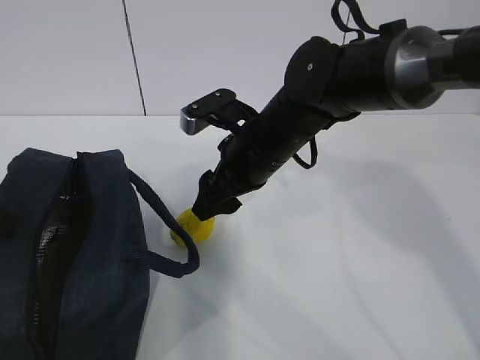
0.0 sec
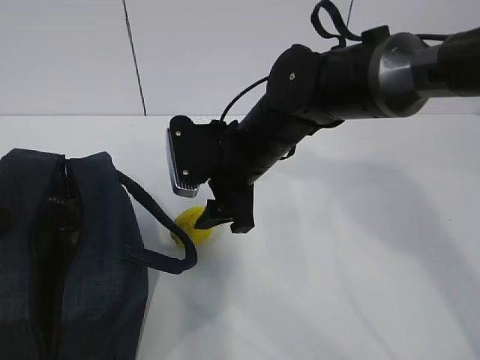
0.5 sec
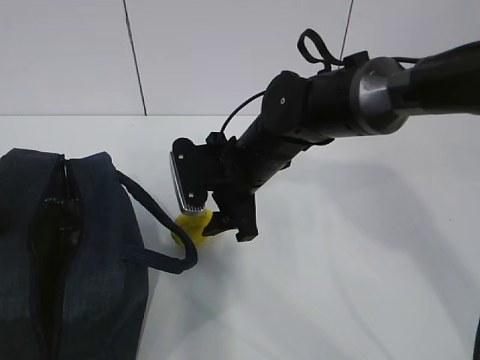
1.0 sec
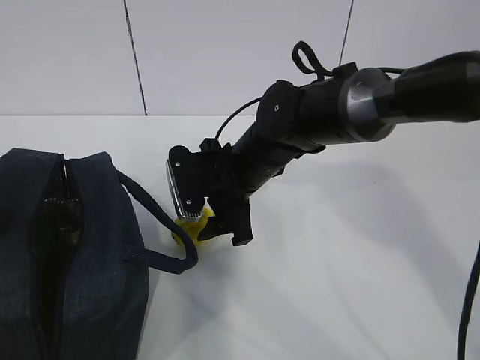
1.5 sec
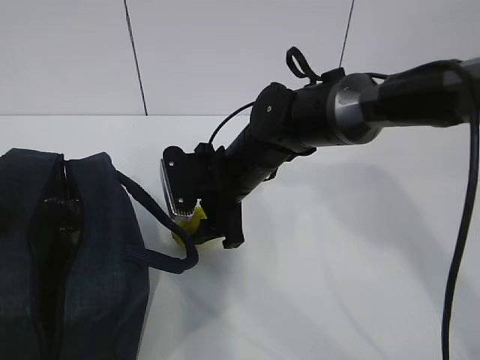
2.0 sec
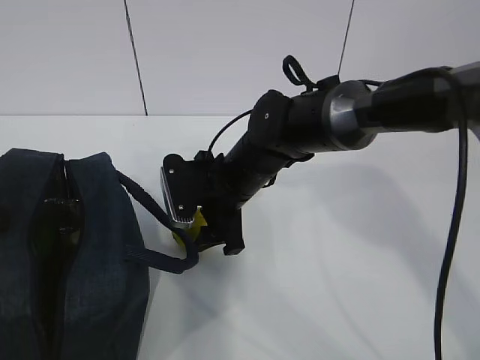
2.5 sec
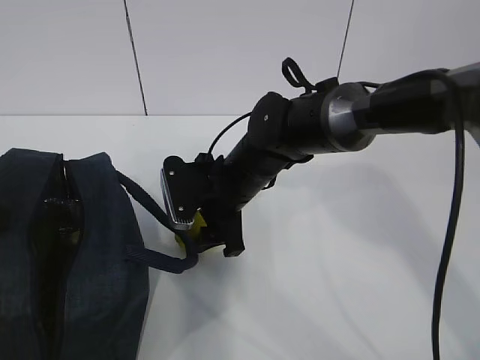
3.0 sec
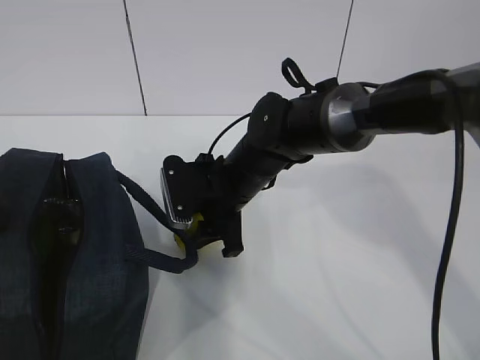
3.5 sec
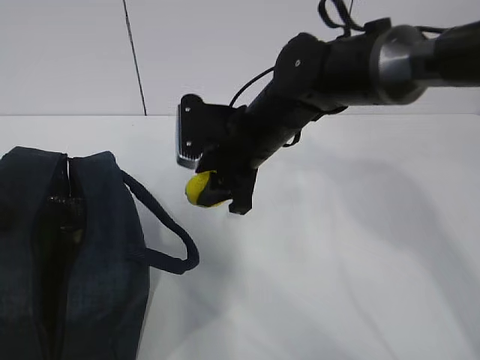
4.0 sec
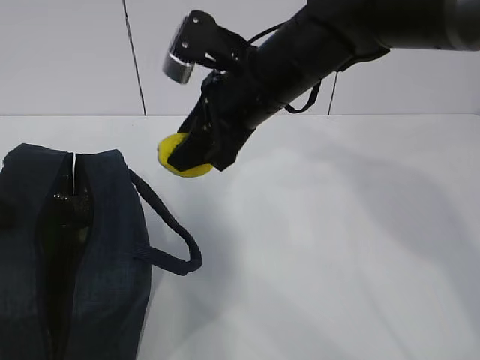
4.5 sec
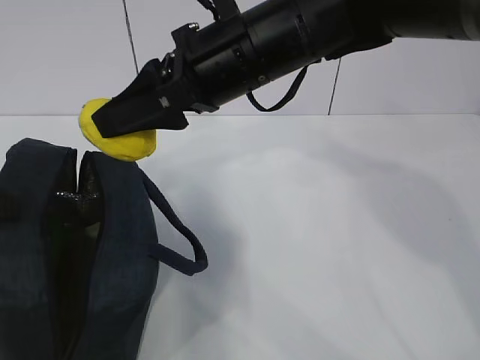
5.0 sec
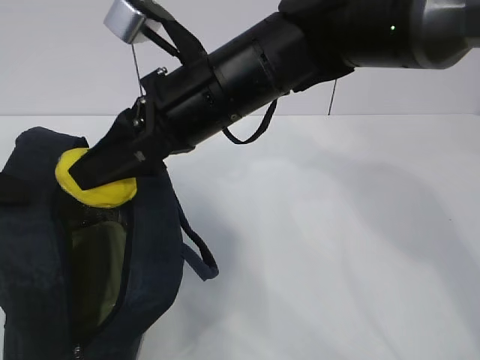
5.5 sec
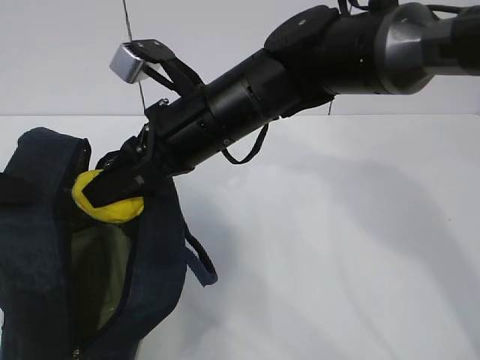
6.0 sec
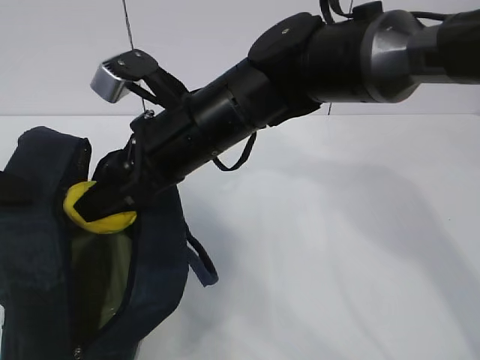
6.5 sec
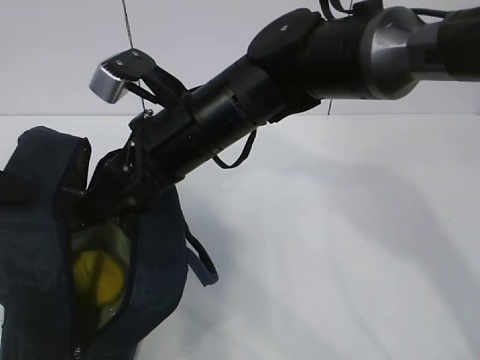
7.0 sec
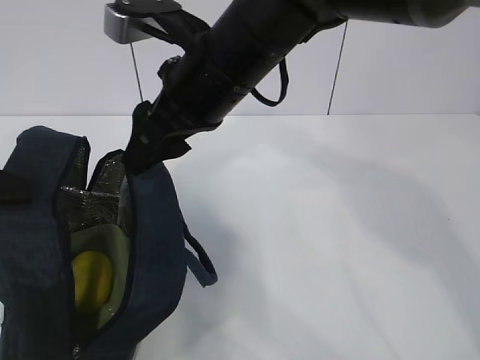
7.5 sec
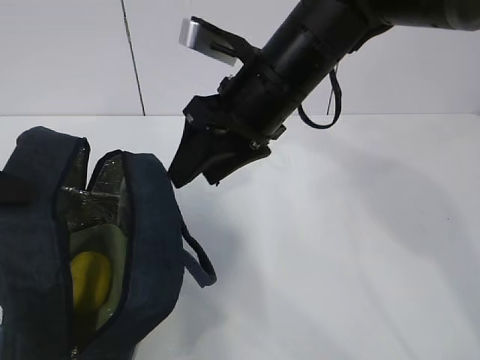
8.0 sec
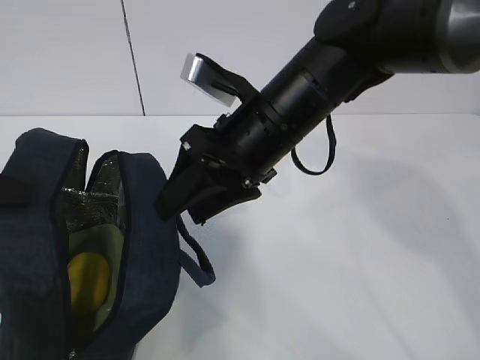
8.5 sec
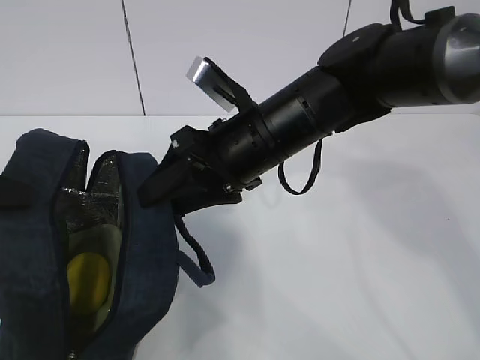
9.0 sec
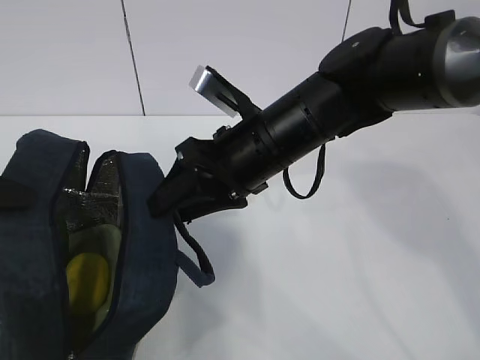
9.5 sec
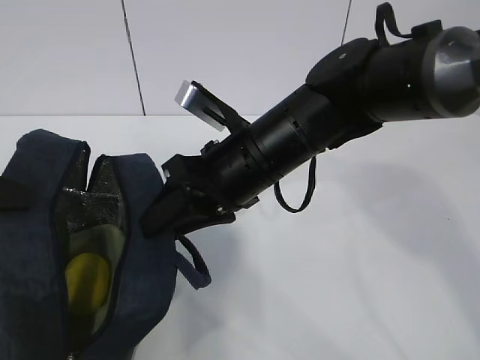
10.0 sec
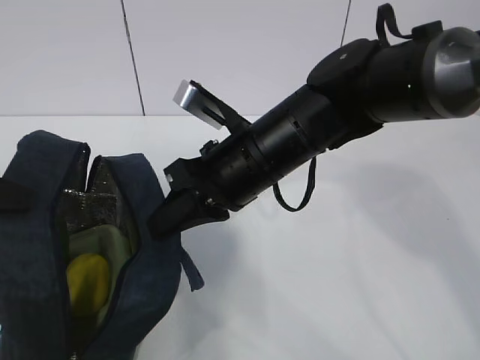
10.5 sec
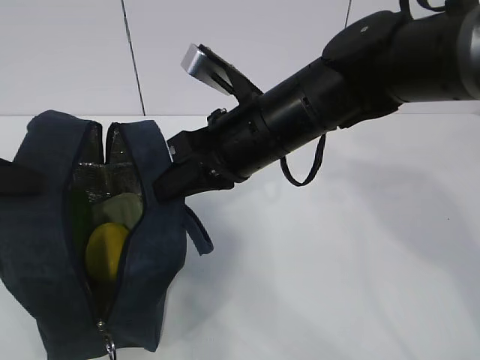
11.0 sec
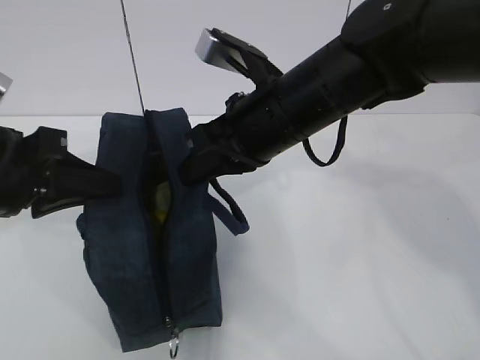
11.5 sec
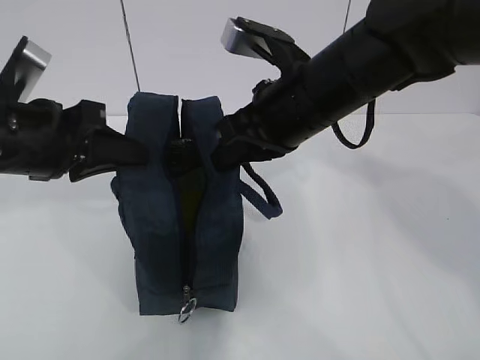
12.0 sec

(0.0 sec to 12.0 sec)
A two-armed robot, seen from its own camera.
Step, 0.0 sec - 3.5 sec: Grasp the lemon with the right gripper.
Step, 4.0 sec - 7.0 sec: Place the lemon into the package with the right gripper.
0.0 sec - 2.0 sec: The right gripper ends up about 5 cm from where it was.
2.0 sec - 4.0 sec: The right gripper moves some 5 cm.
4.0 sec - 6.0 sec: The right gripper goes approximately 10 cm upward and backward.
6.0 sec - 8.0 sec: The right gripper is displaced to the right by roughly 5 cm.
8.0 sec - 10.0 sec: The right gripper shifts some 5 cm downward.
10.0 sec - 12.0 sec: The left gripper moves to the right and forward, about 10 cm, while the right gripper travels upward by approximately 5 cm, and closes.

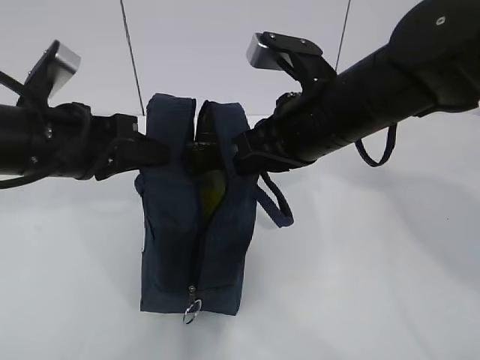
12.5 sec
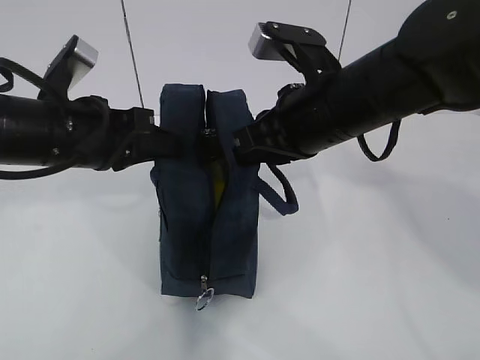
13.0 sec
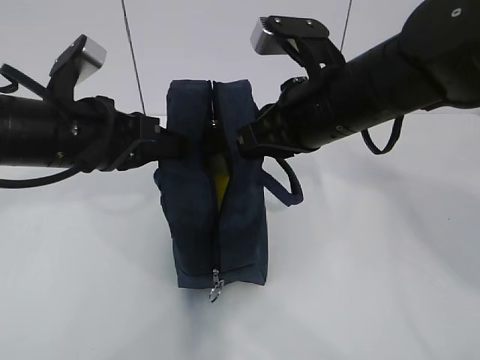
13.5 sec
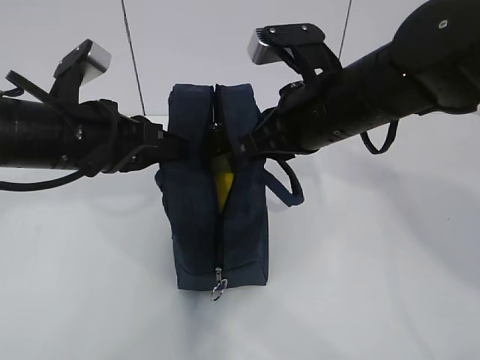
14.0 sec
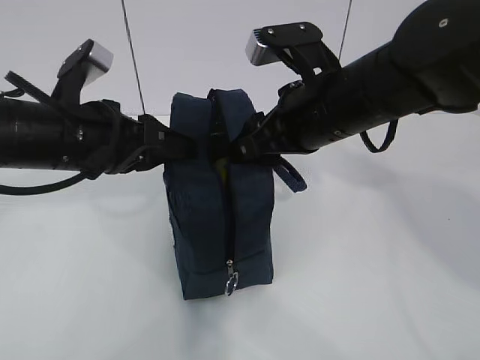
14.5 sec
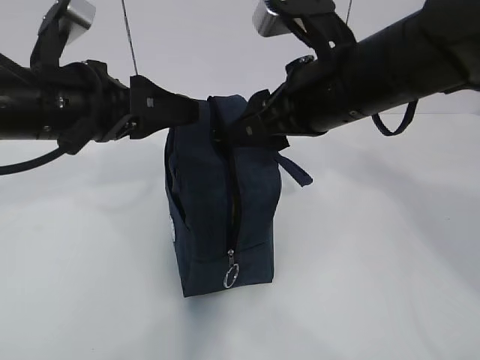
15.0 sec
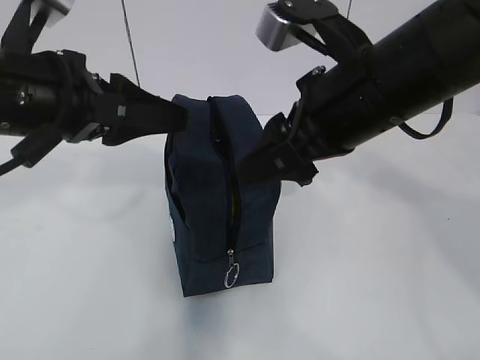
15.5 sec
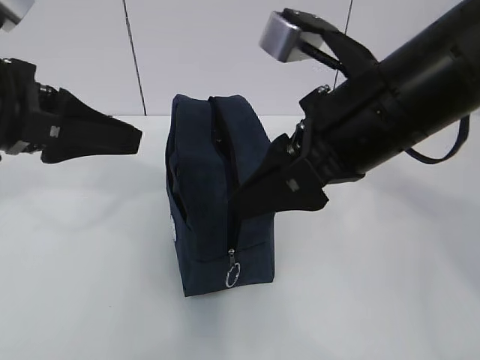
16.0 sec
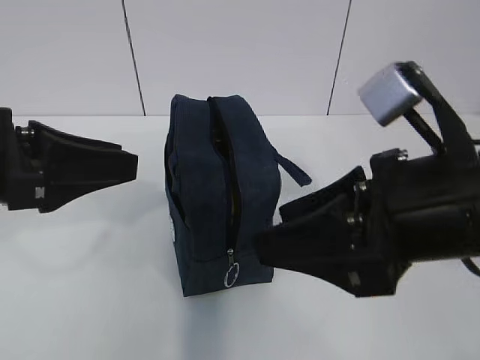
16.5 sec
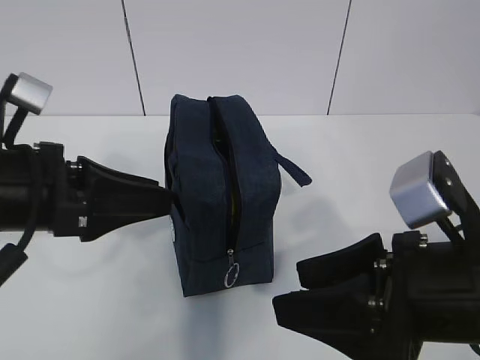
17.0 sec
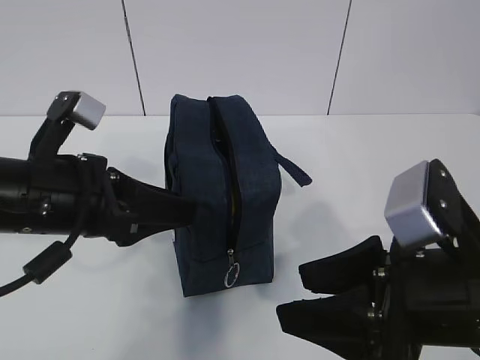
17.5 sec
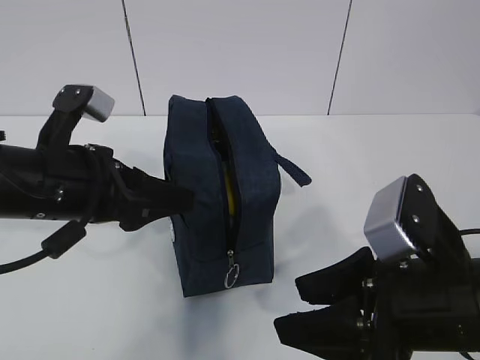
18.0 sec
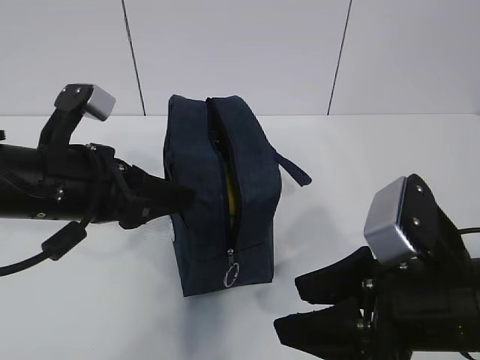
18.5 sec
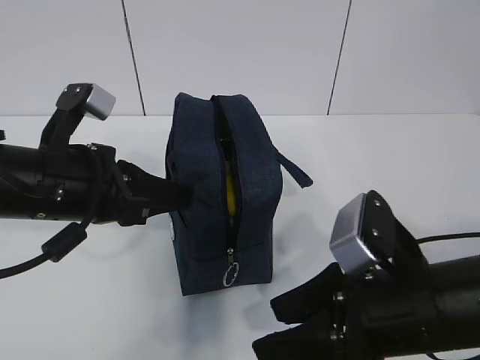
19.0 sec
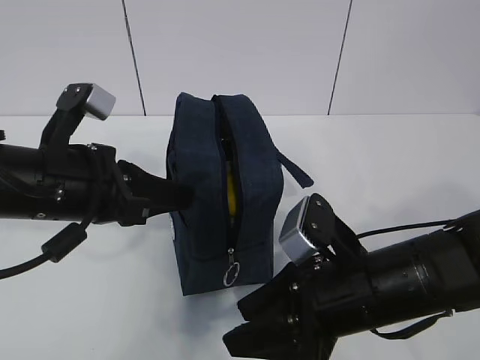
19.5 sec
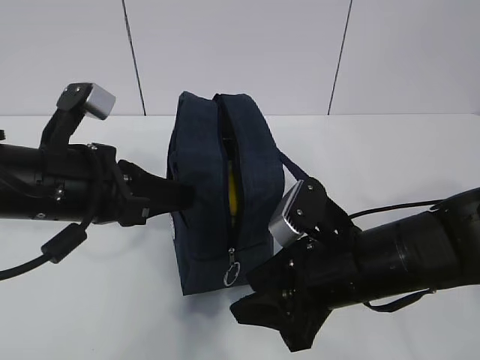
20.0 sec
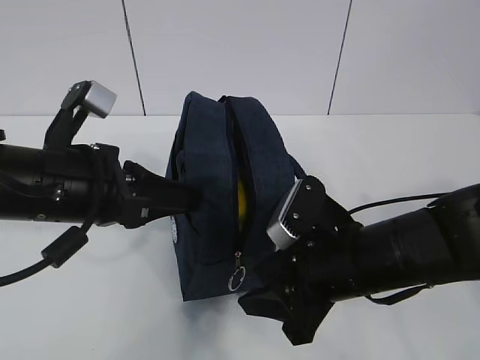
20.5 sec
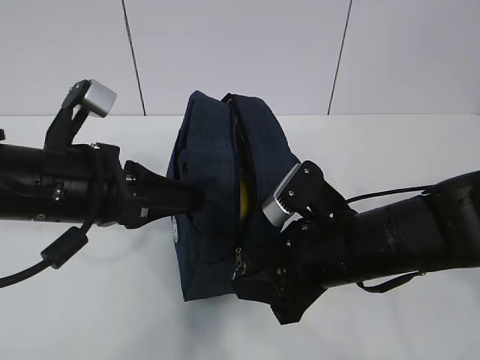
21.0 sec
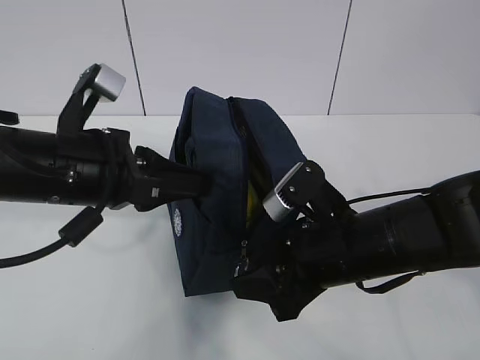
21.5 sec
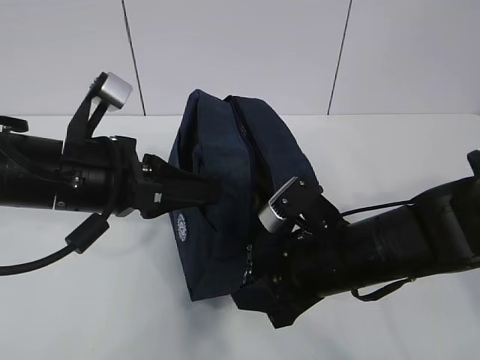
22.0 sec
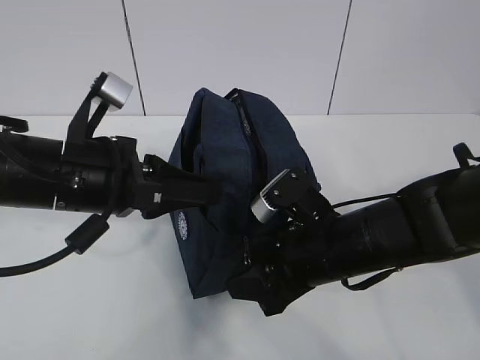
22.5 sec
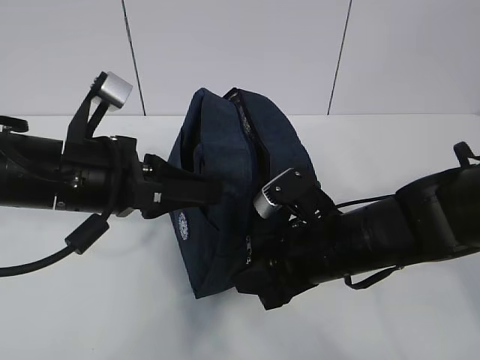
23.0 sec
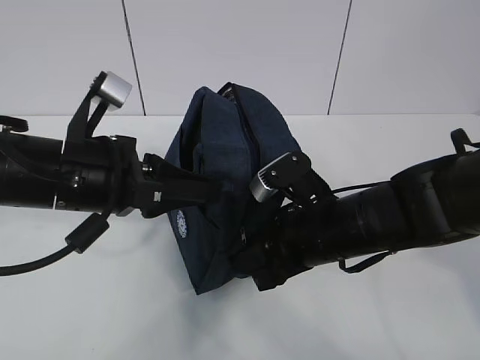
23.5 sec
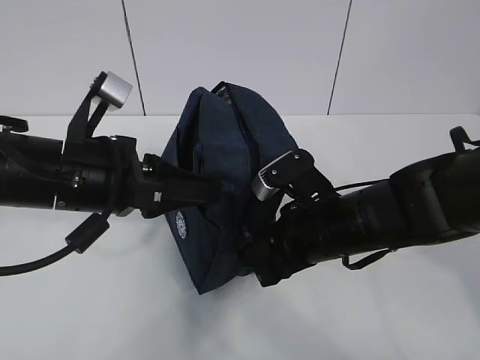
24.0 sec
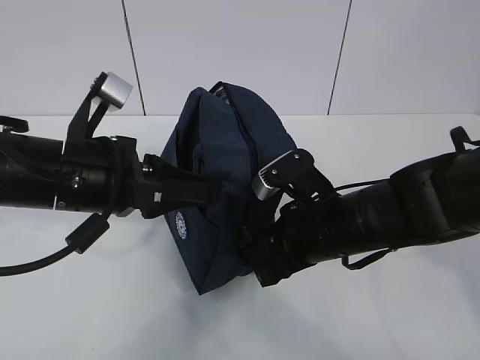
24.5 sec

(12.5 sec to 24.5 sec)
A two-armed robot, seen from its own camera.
12.5 sec - 14.5 sec: The left gripper opens its fingers, while the right gripper opens up.
14.5 sec - 16.5 sec: The left gripper heads backward and to the left, covering some 10 cm, while the right gripper is displaced backward by some 15 cm.
16.5 sec - 18.5 sec: The two grippers go about 5 cm downward.
18.5 sec - 20.5 sec: The right gripper goes some 10 cm forward and downward. Meanwhile the left gripper closes up.
20.5 sec - 24.5 sec: The grippers move only a little.

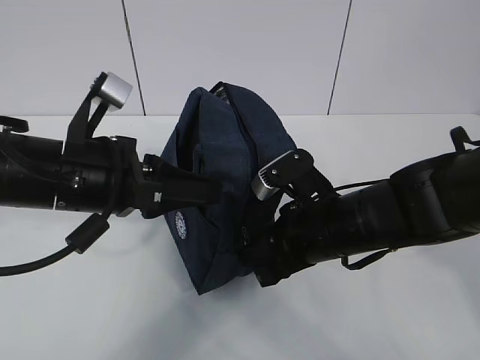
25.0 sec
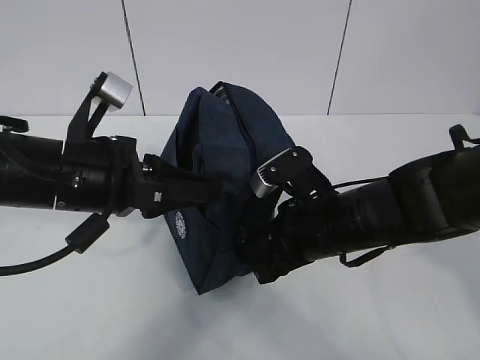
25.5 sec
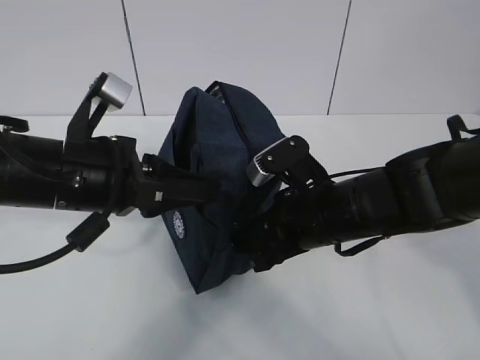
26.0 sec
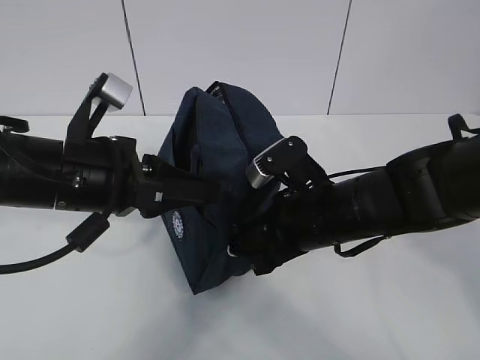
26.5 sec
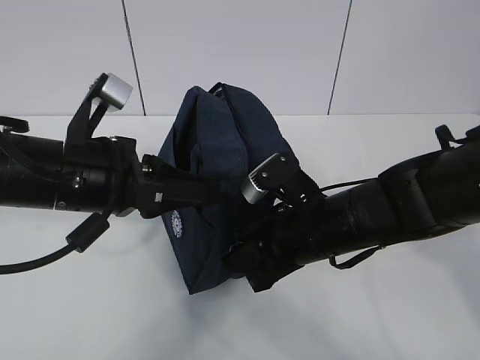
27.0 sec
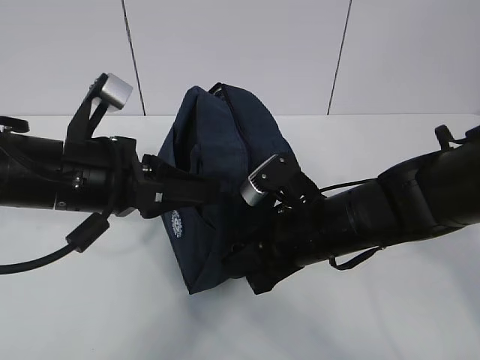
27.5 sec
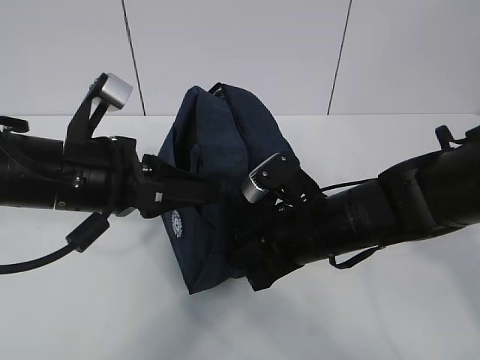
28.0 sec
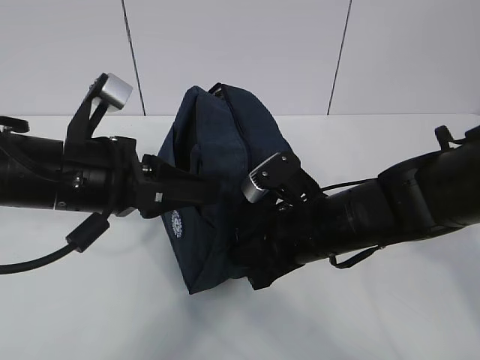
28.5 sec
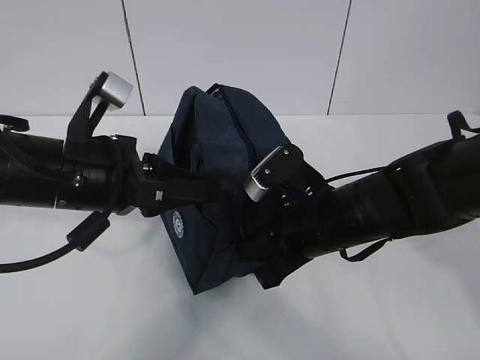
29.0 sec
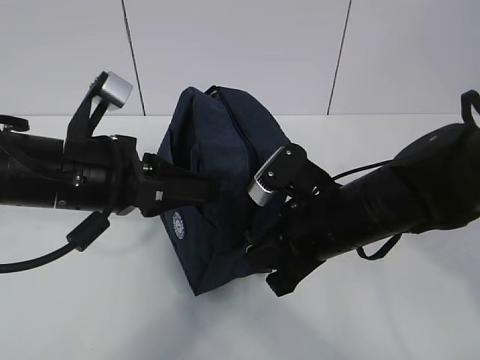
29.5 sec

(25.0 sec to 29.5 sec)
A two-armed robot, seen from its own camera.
25.0 sec - 27.0 sec: The grippers make only small movements.
27.0 sec - 29.5 sec: The right gripper closes.
